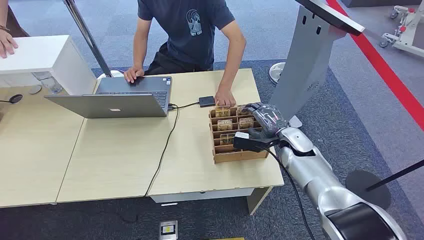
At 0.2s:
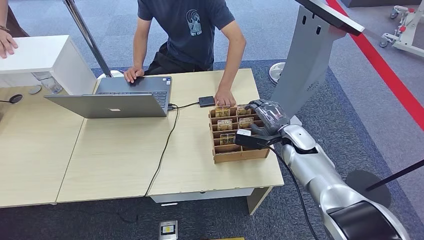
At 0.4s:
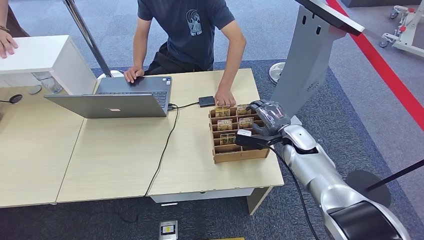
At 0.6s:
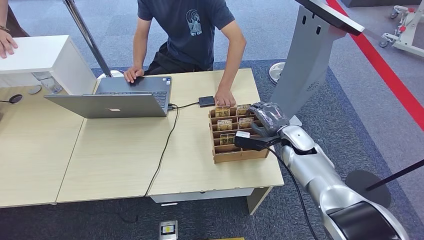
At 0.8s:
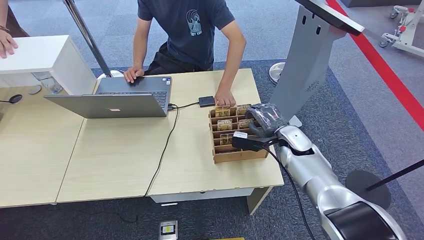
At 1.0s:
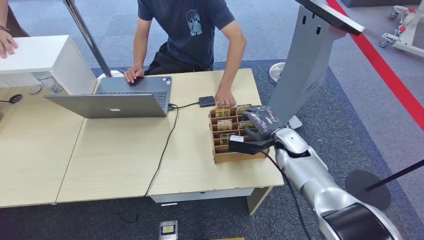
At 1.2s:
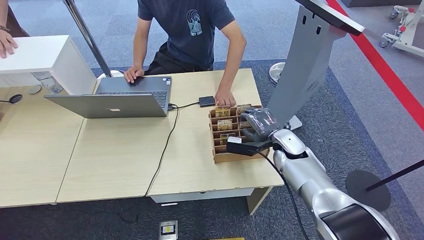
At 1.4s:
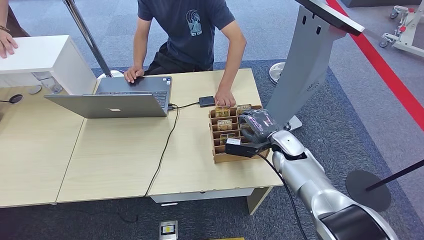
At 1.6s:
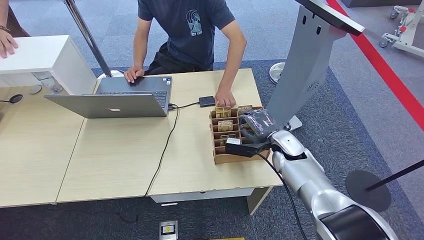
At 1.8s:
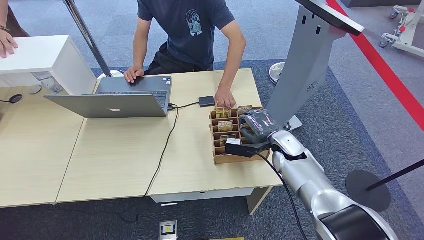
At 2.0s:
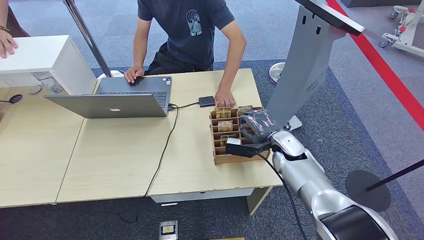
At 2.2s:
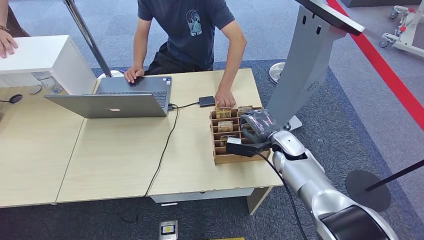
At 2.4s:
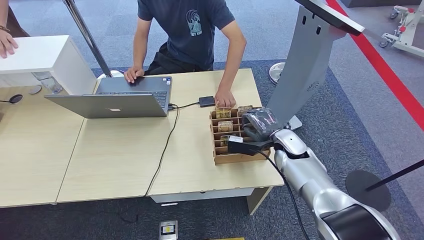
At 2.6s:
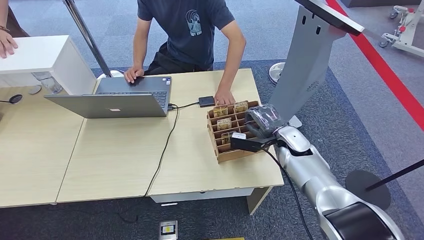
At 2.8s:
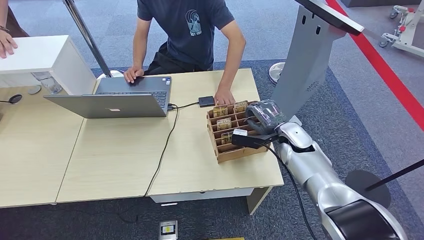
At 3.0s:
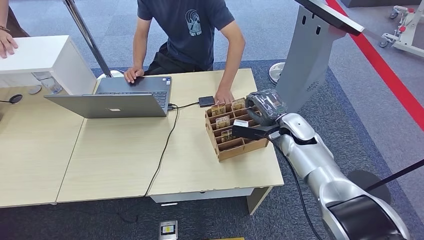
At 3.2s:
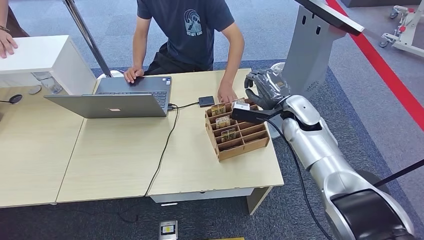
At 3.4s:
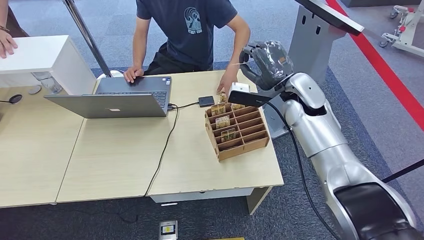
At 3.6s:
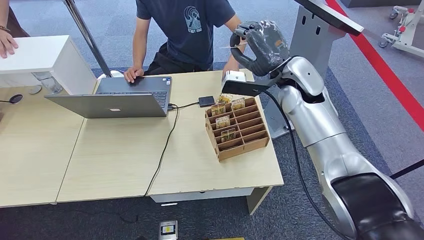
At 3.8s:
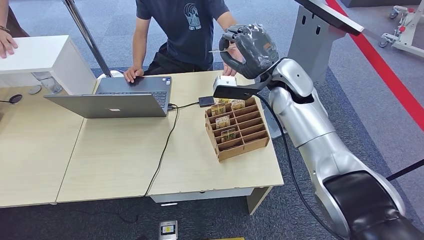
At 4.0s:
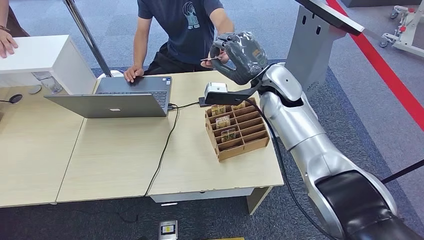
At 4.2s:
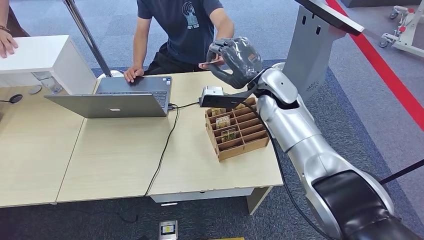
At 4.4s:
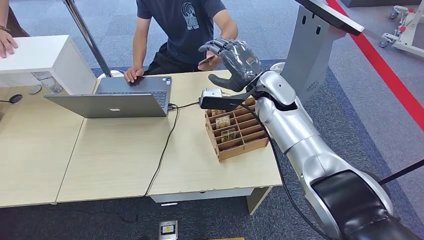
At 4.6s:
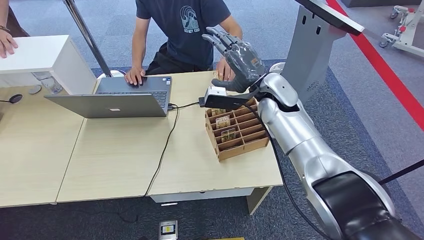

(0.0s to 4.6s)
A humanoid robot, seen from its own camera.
Step, 0.0s - 3.0s: Pick up the room card from the card holder.
Step, 3.2s - 4.6s: Hand the room card to the target.
1.6s - 3.0s: The right hand moves upward, about 15 cm.
3.0s - 4.6s: The right hand goes upward and returns, some 10 cm each way.

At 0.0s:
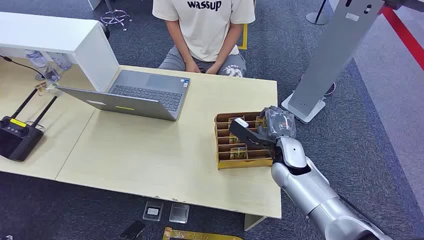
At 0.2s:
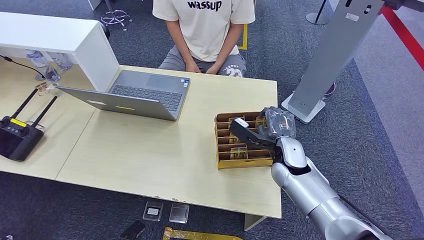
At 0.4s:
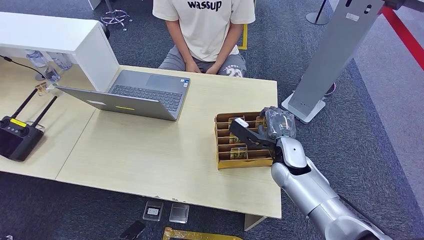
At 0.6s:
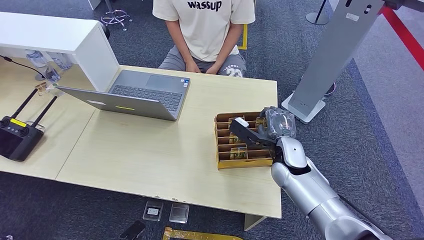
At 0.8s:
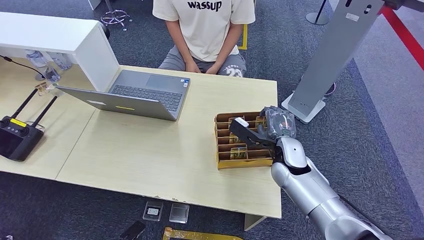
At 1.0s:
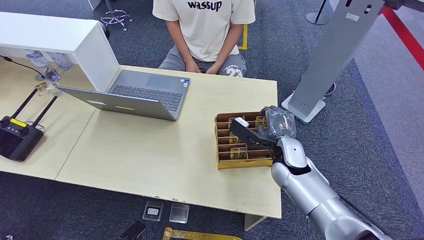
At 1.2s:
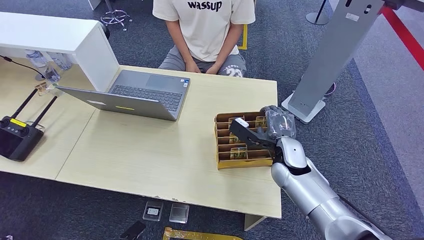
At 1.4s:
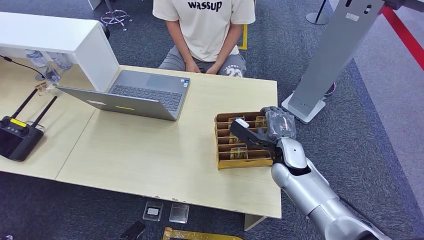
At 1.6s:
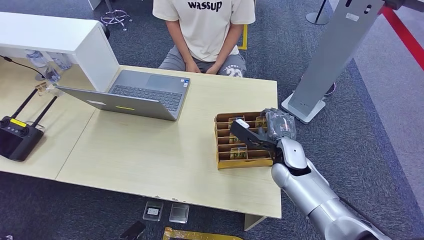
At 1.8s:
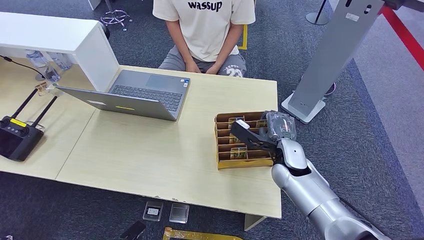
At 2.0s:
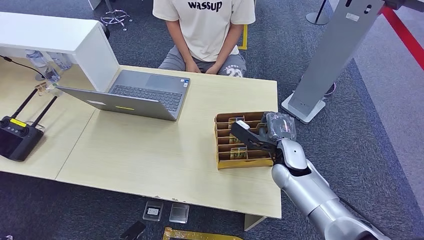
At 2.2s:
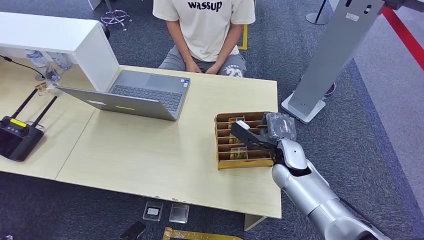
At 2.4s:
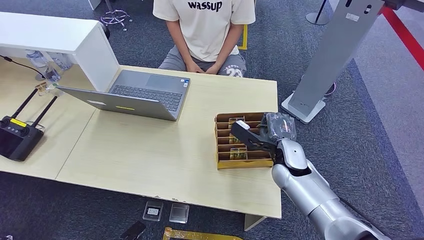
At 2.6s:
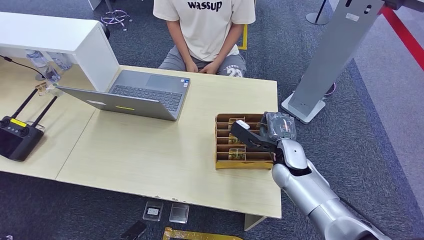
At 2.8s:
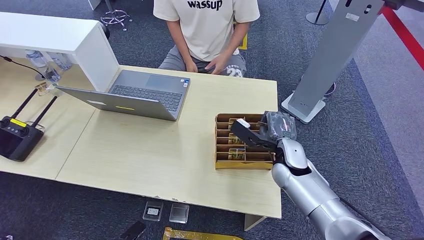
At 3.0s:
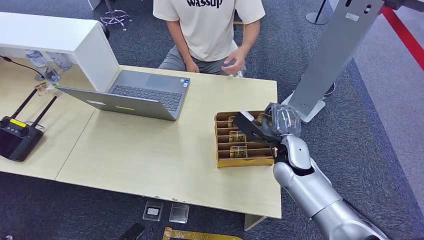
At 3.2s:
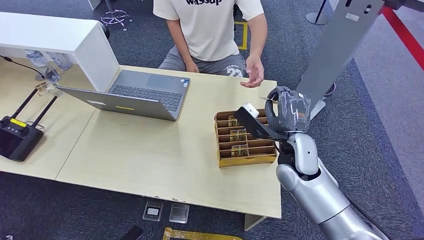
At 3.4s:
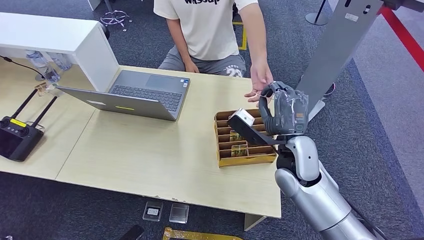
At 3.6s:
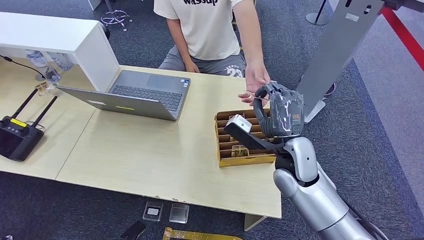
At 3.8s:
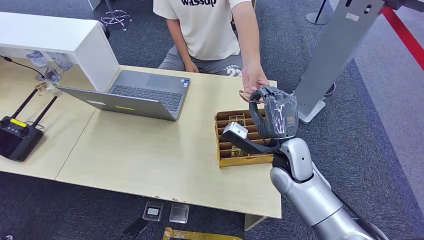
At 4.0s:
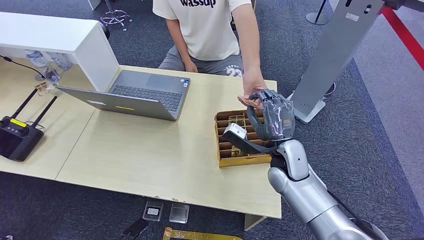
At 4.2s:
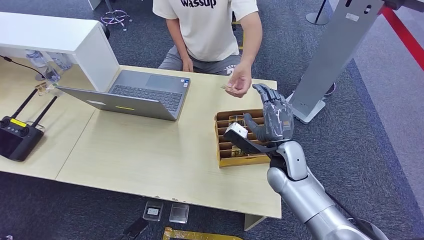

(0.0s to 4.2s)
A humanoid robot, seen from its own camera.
Step, 0.0s - 3.2s: Pick up the room card from the card holder.
Step, 3.4s - 4.2s: Hand the room card to the target.
1.4s - 2.8s: The right hand heads upward, covering roughly 5 cm.
